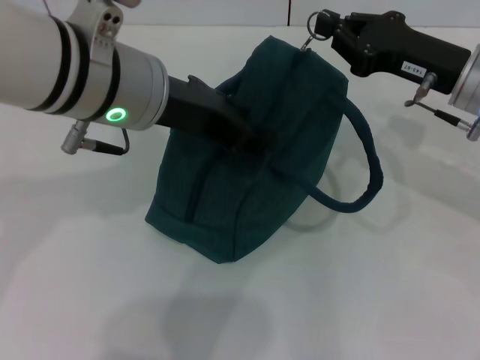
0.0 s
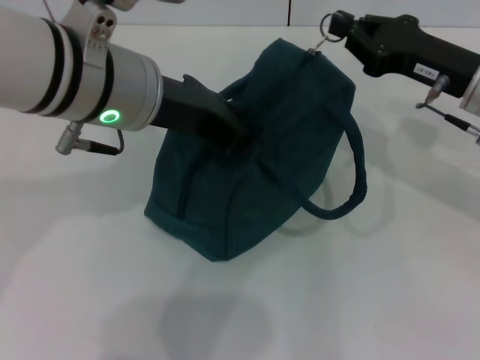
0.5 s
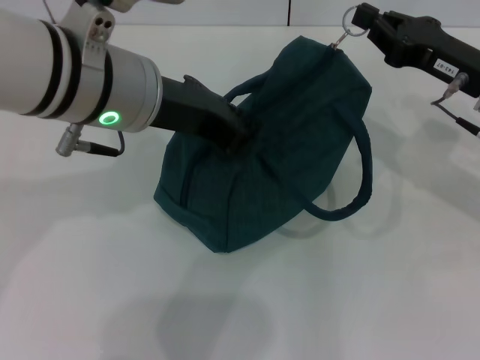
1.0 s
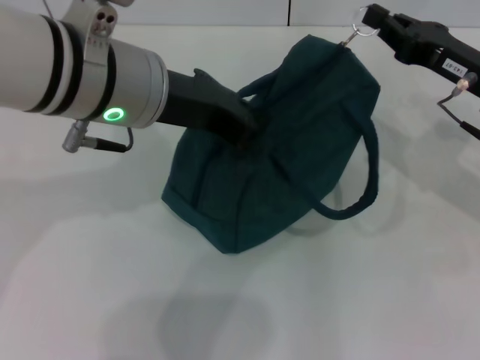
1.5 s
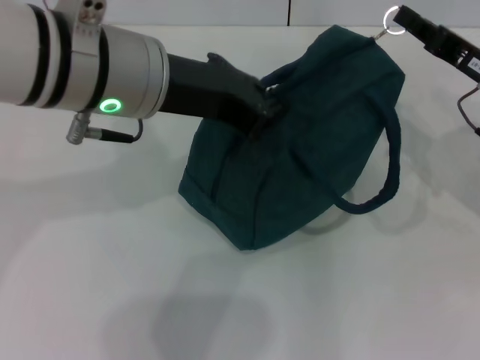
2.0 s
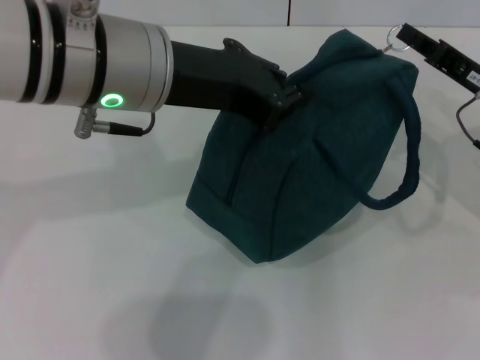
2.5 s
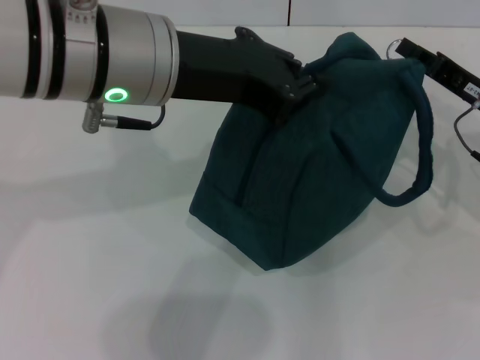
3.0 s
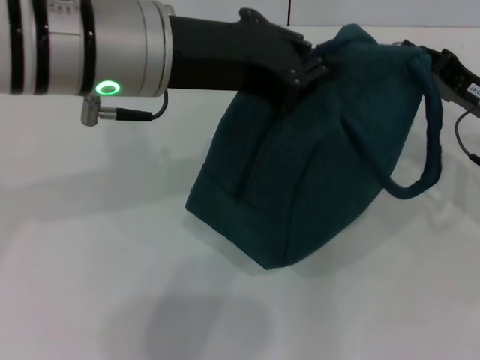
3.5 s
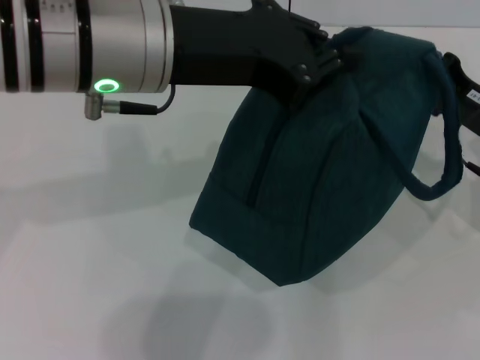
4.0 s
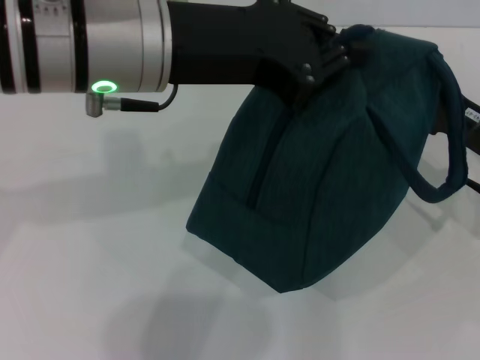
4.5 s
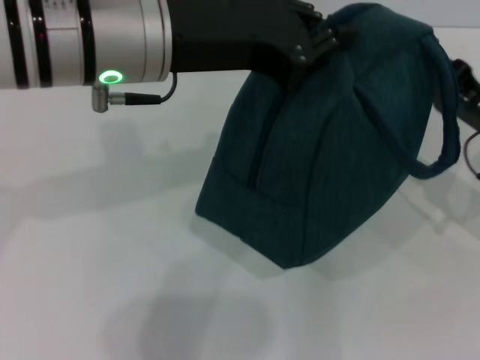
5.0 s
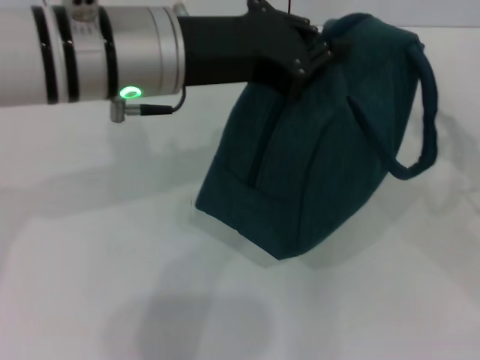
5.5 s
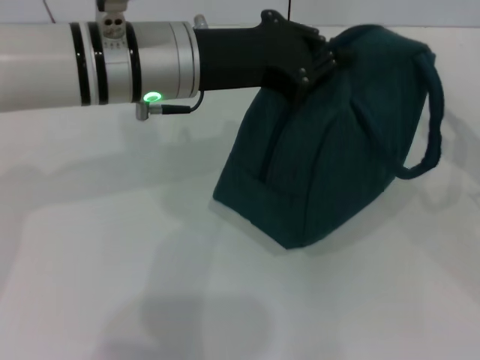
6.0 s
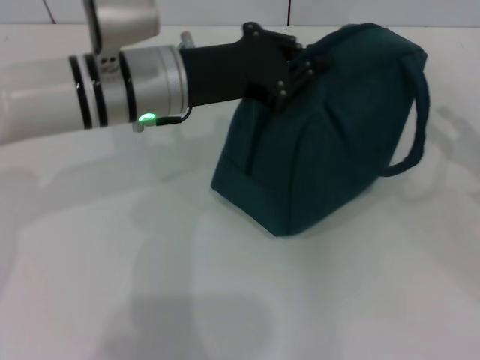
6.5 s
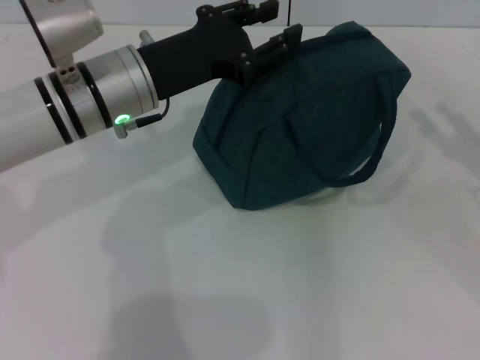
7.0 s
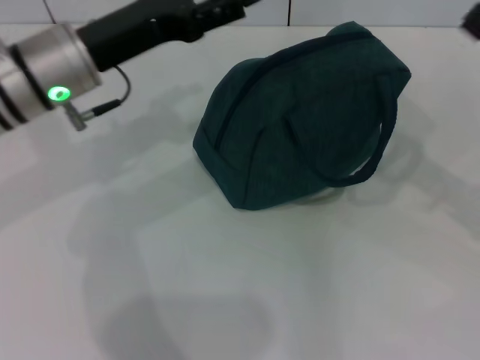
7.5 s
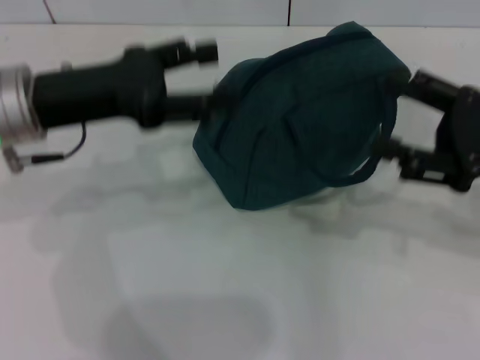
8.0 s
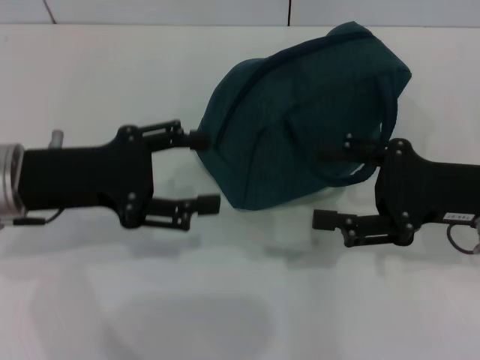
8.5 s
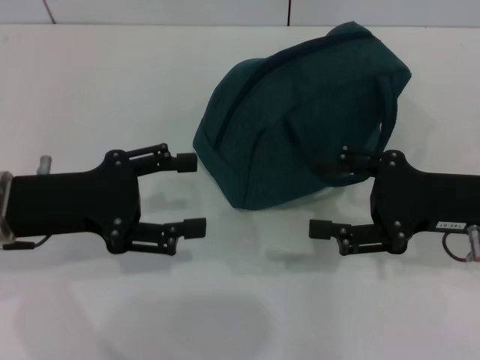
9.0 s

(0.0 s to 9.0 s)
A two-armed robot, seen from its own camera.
Step, 0.0 s - 5.0 s: Zip up the lunch bag with your right hand.
Step, 5.5 s - 7.0 s: Hold the lunch bag with your left hand.
0.0 s - 2.0 s: The left gripper closes up. The right gripper shifts about 5 cm to the right.
2.0 s - 4.5 s: The right gripper shifts by some 5 cm.
4.5 s - 7.0 s: The right gripper shifts approximately 10 cm to the right, and opens up. Meanwhile the left gripper is displaced downward and forward by some 15 cm.
7.0 s - 9.0 s: The right gripper is displaced to the left by about 10 cm, while the left gripper heads to the left and backward, covering some 15 cm, and opens.
